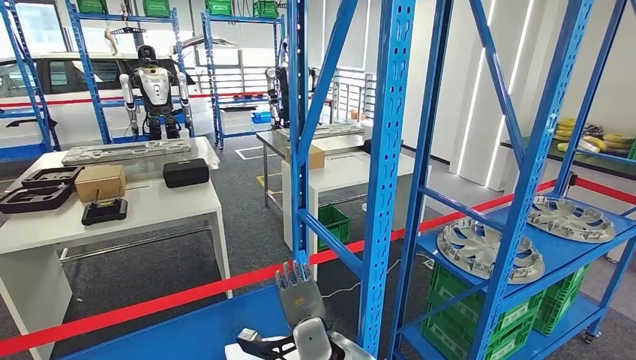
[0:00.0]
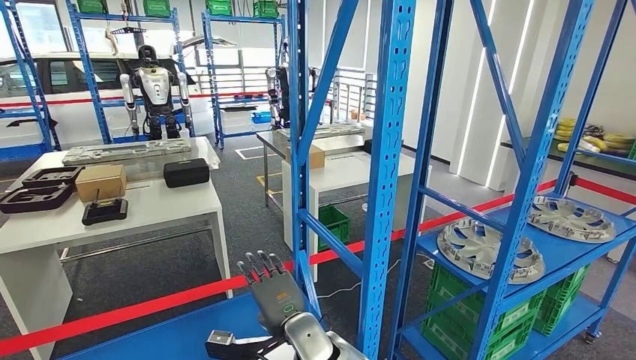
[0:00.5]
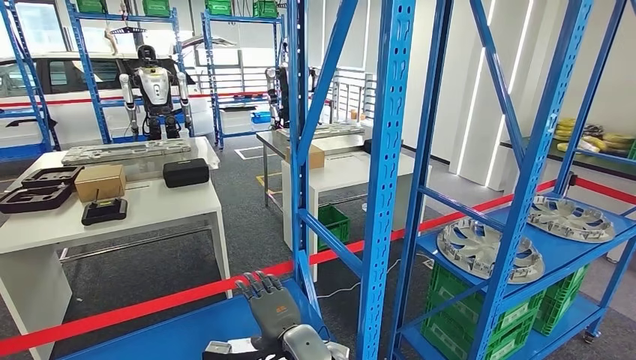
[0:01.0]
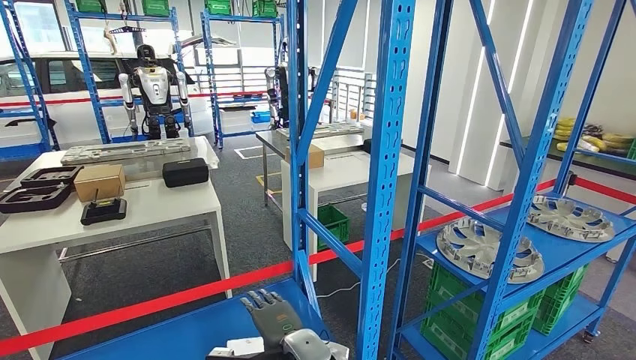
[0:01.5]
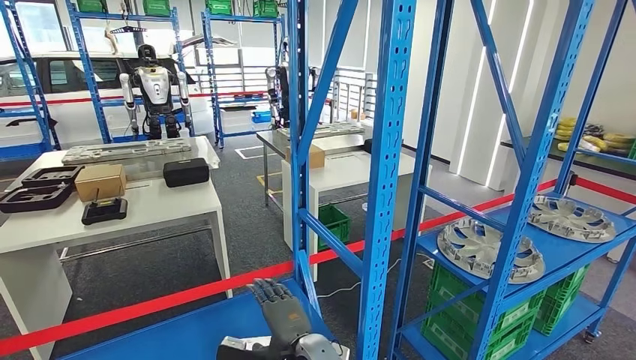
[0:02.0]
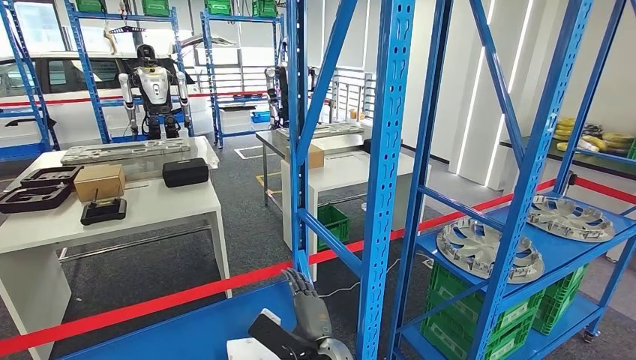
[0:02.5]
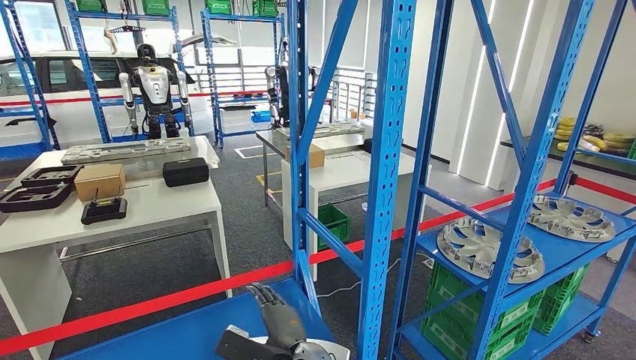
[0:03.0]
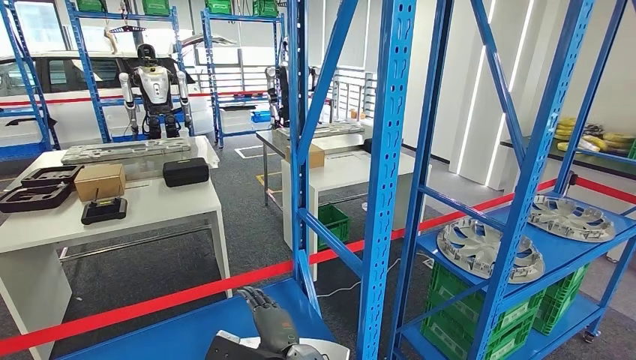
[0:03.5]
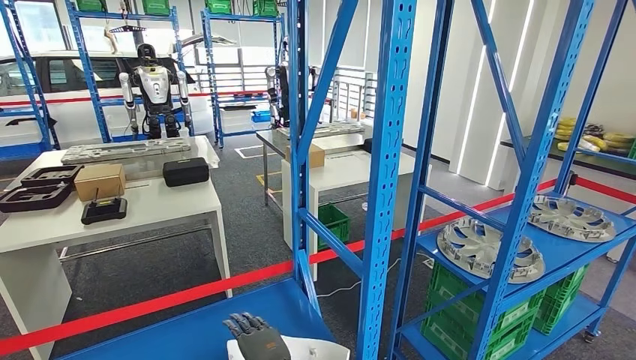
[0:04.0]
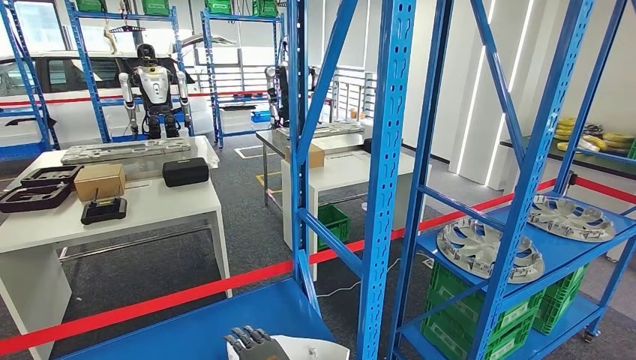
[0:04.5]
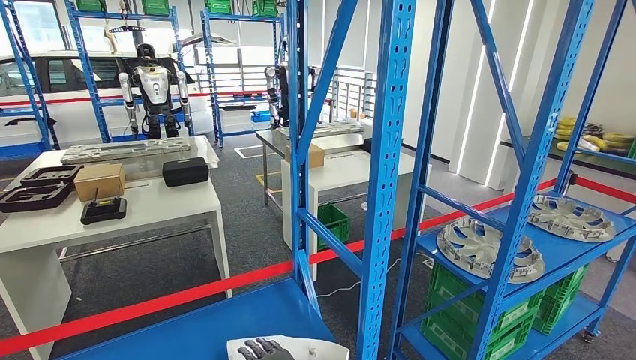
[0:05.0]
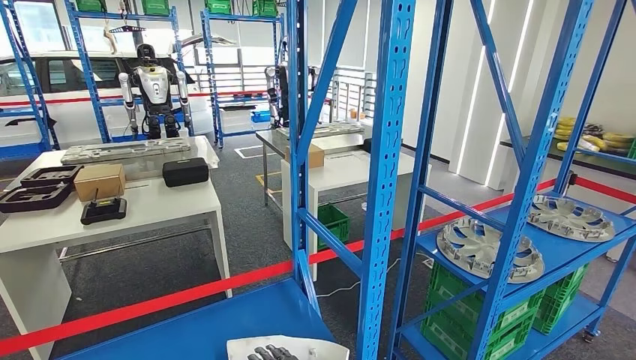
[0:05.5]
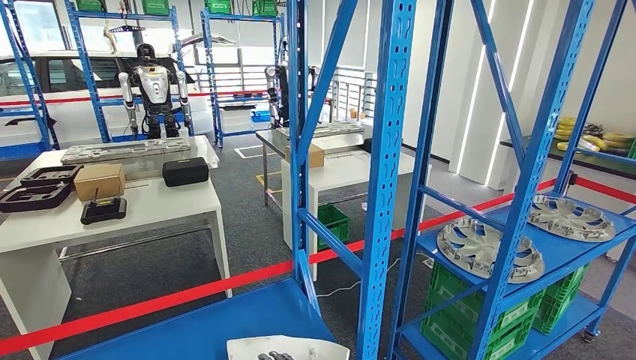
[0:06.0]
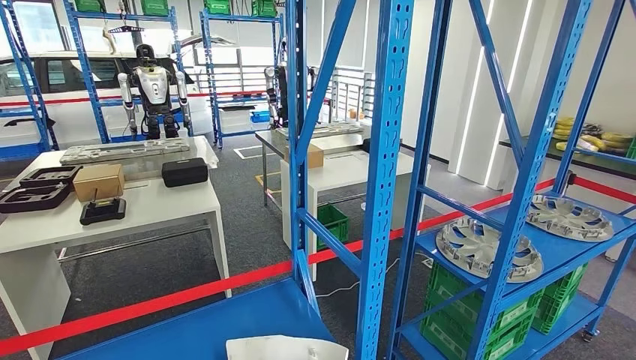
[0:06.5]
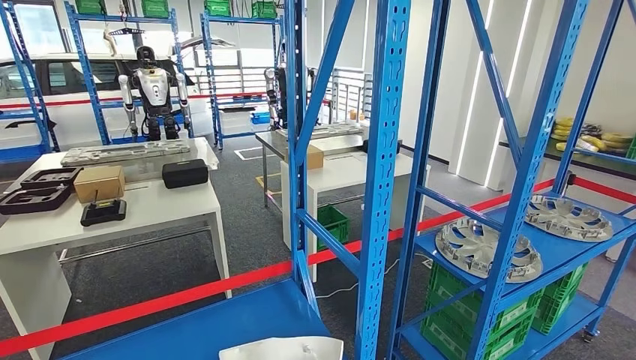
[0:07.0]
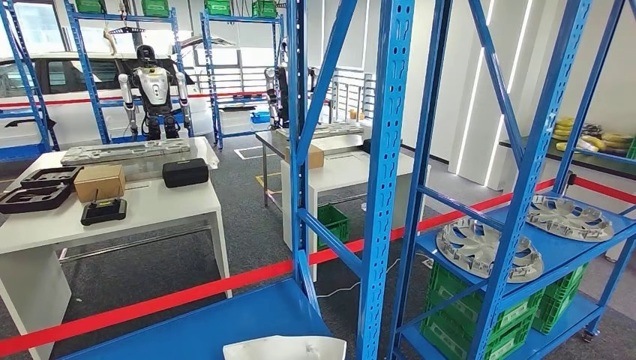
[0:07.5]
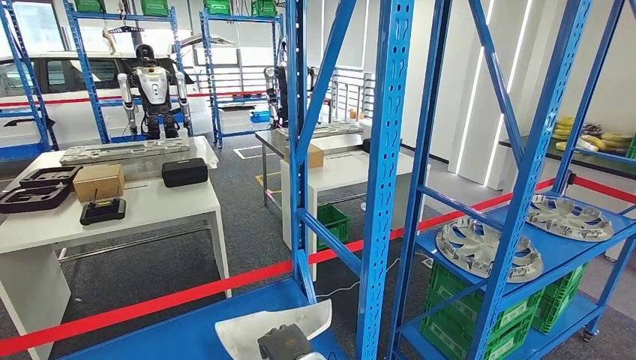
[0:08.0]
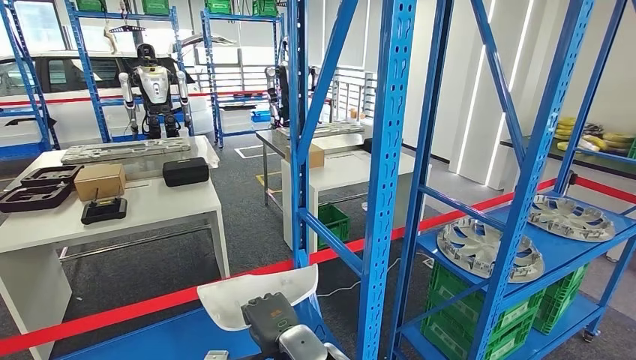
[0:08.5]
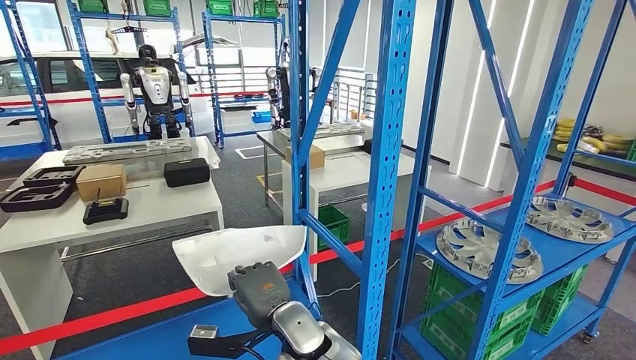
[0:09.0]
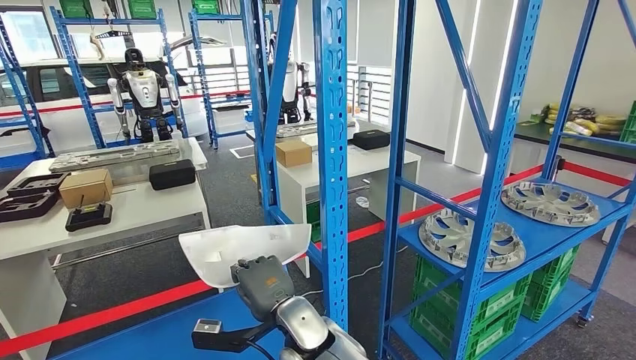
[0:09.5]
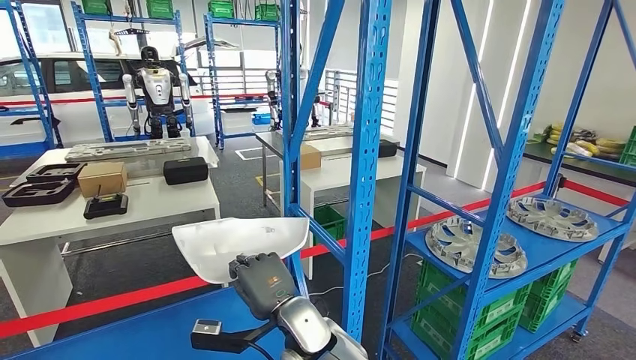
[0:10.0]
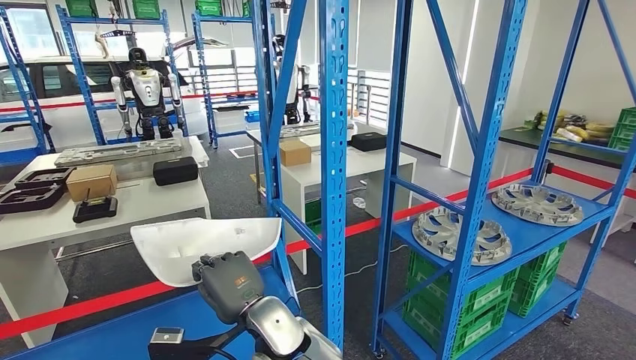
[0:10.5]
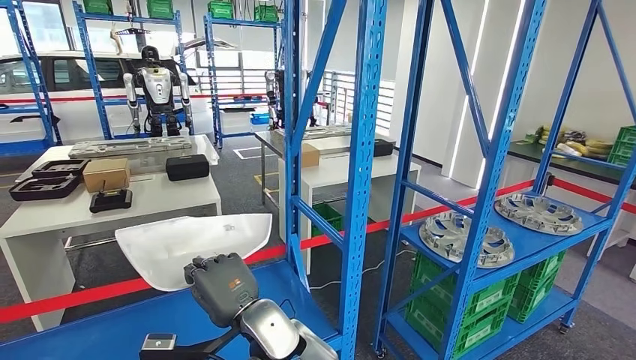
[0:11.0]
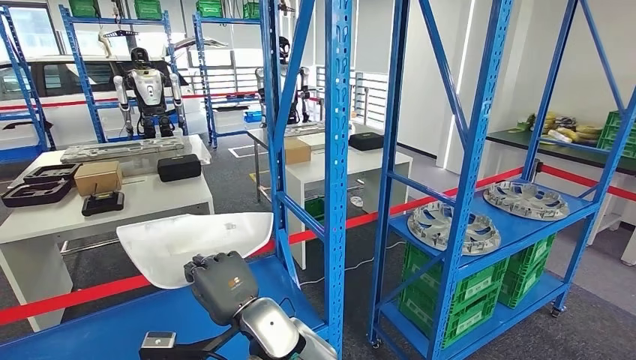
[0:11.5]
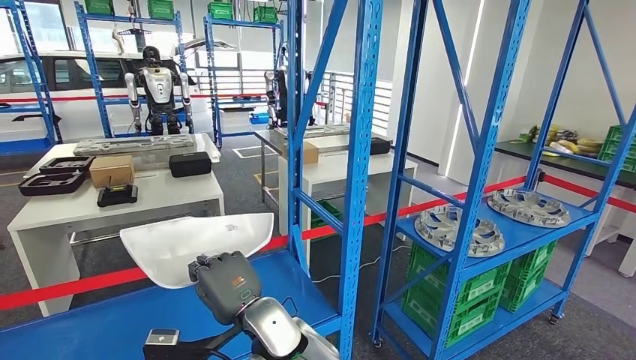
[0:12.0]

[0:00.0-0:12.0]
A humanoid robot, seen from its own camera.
Step, 0:00.0 to 0:10.5: Take small components from the rack.
0:00.0 to 0:02.0: The right hand moves some 5 cm.
0:02.0 to 0:04.0: The right hand changes place by some 5 cm.
0:04.0 to 0:06.0: The right hand moves to the right, roughly 5 cm.
0:06.0 to 0:08.0: The right hand moves about 5 cm.

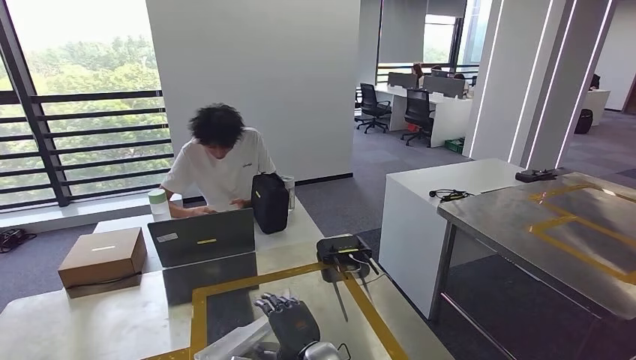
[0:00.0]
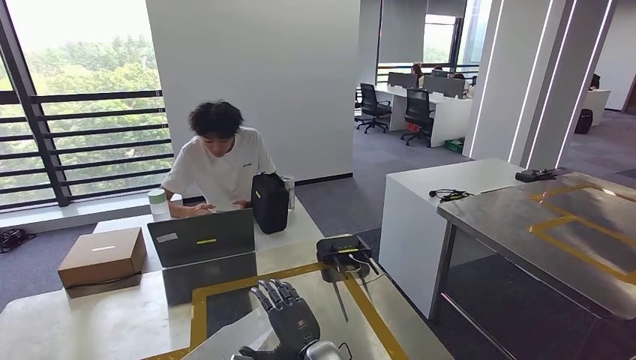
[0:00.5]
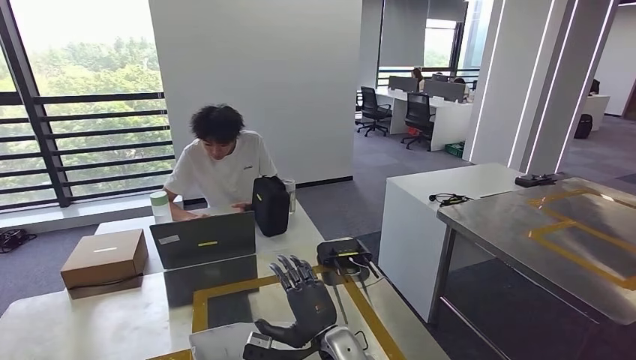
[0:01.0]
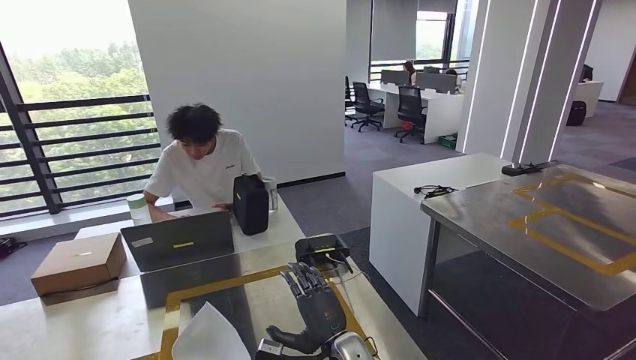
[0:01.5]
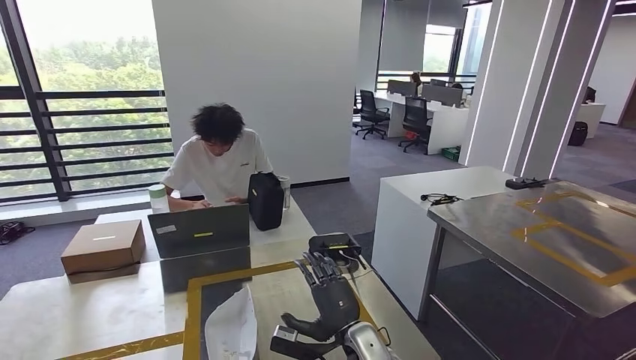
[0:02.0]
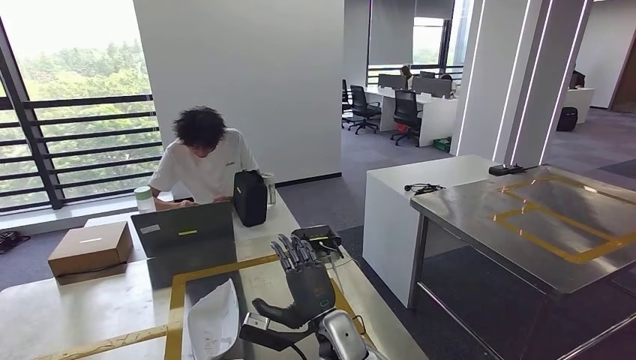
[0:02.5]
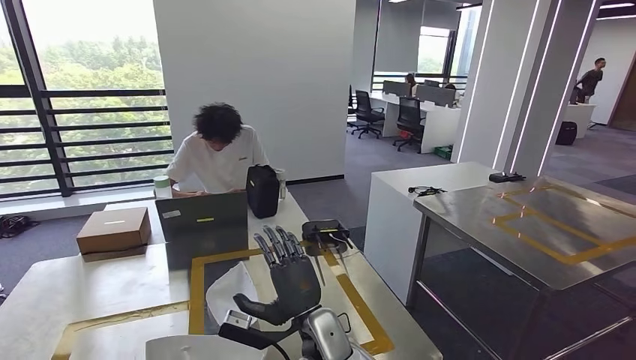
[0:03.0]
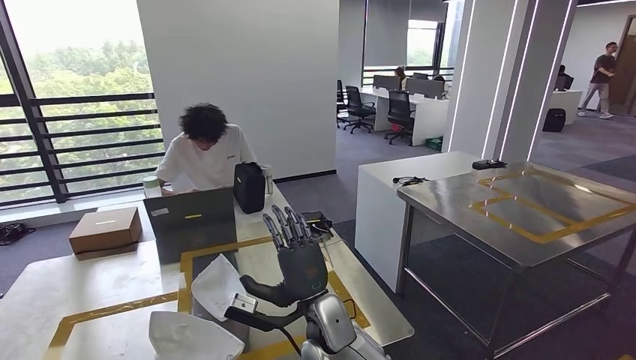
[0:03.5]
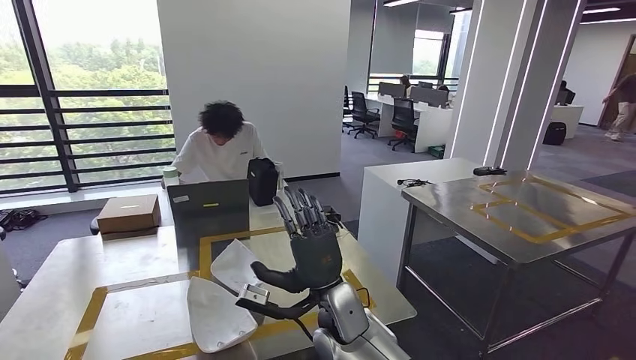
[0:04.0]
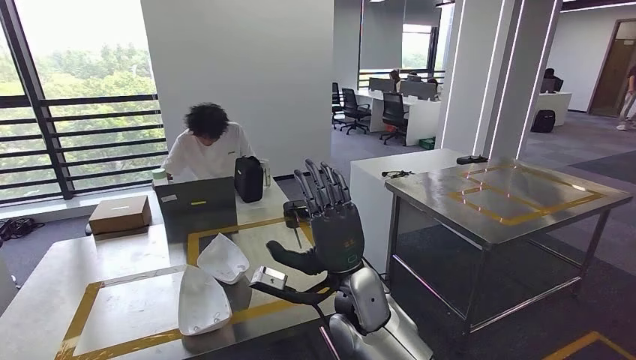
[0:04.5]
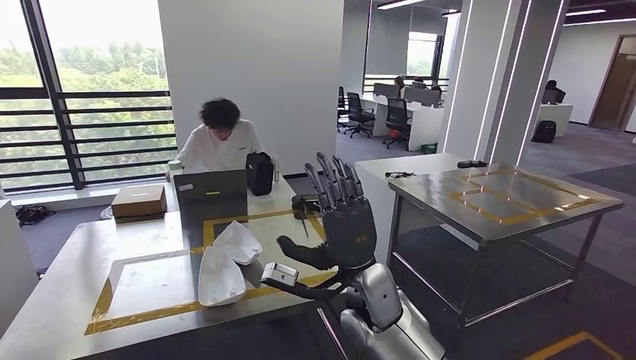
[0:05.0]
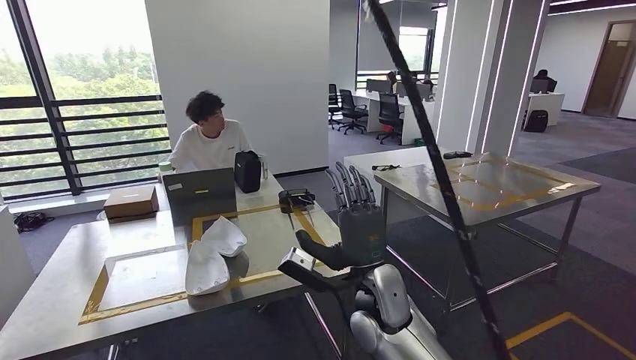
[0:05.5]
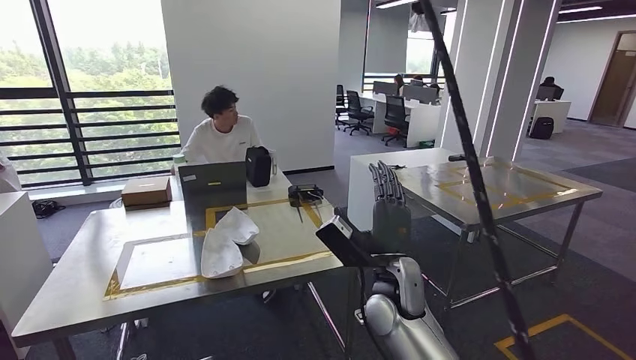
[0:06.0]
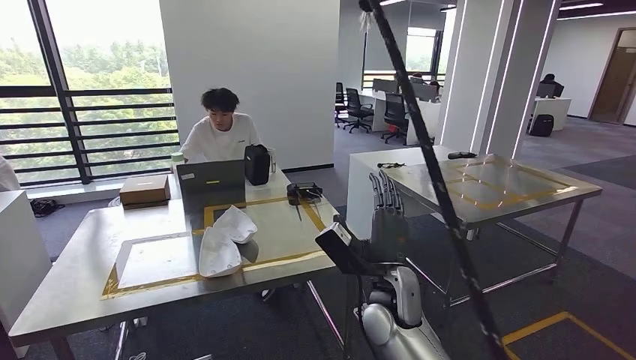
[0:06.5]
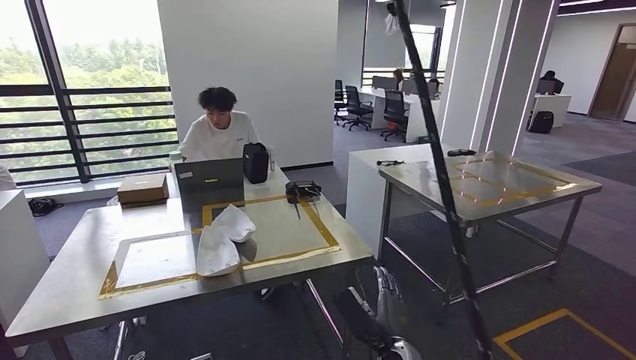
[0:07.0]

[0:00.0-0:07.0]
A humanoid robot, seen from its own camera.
Step, 0:01.5 to 0:06.5: Move to the initial position of the workbench.
